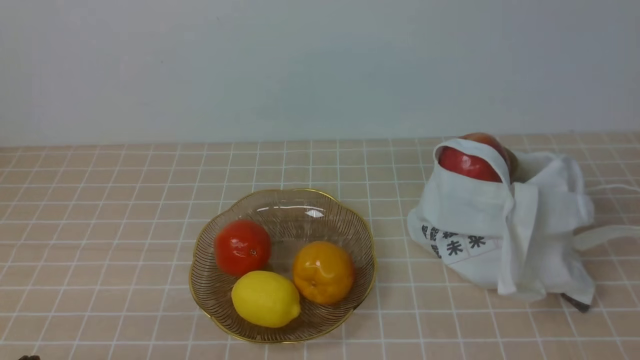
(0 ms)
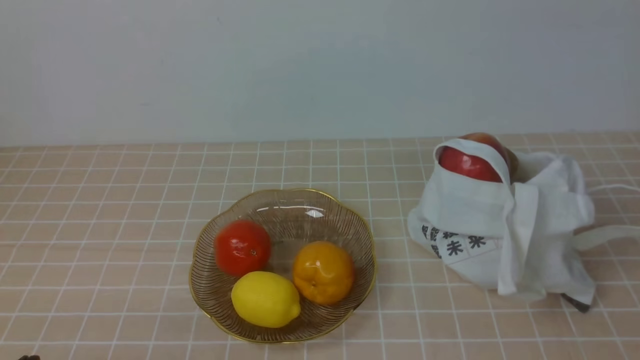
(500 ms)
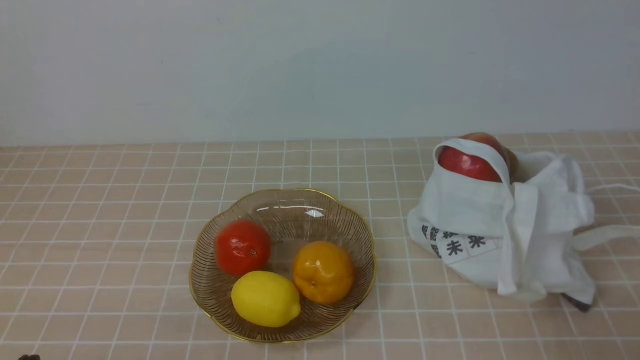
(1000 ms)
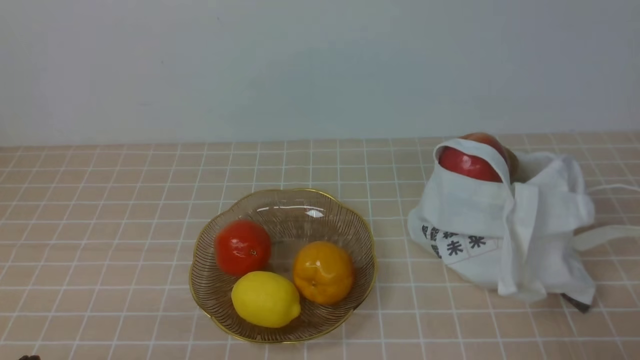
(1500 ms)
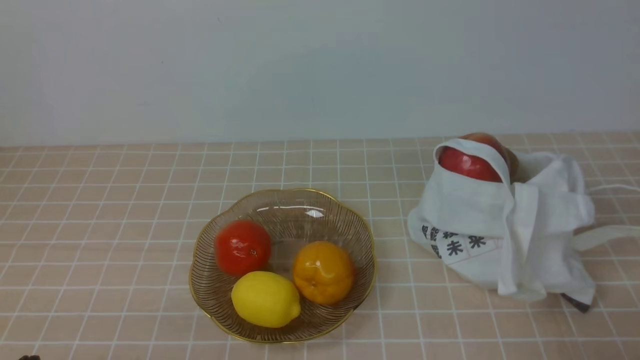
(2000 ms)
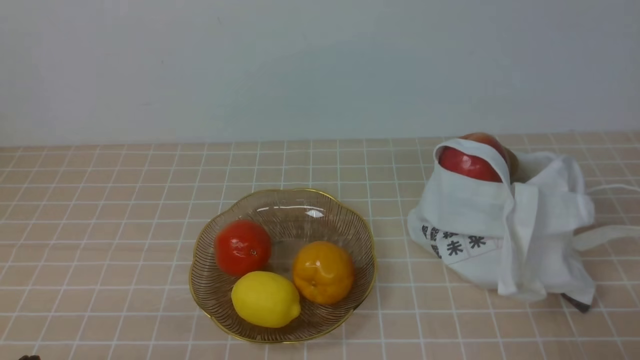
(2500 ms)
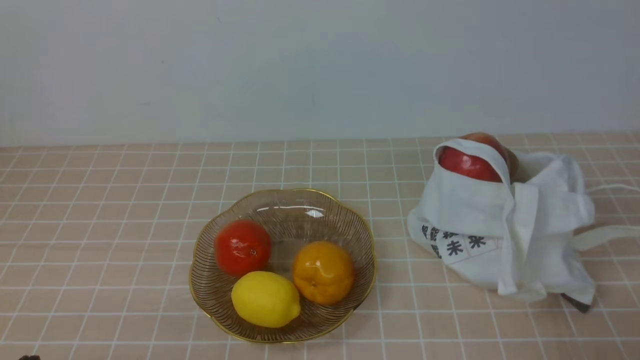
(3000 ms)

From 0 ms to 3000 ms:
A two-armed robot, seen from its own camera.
From 1500 ms to 3000 ms: Both grippers stay put.
